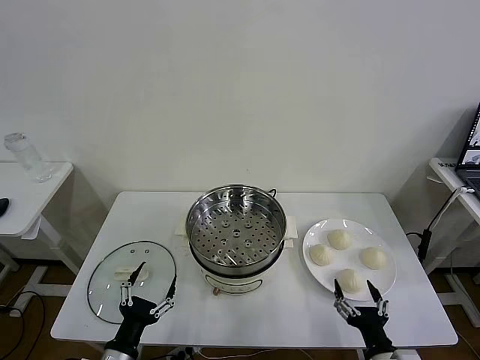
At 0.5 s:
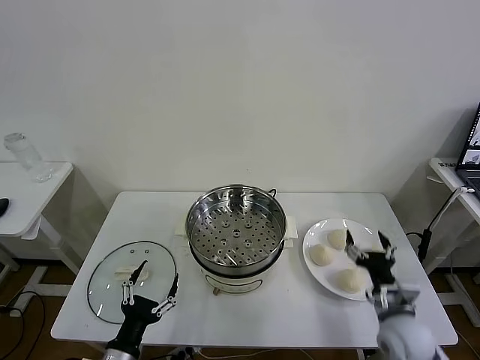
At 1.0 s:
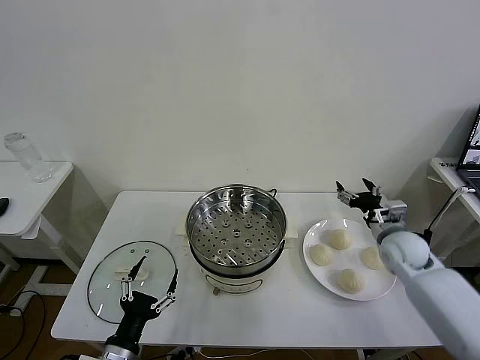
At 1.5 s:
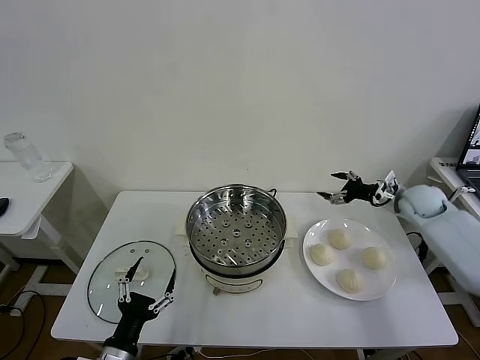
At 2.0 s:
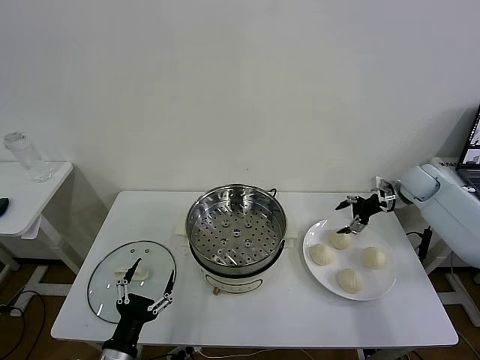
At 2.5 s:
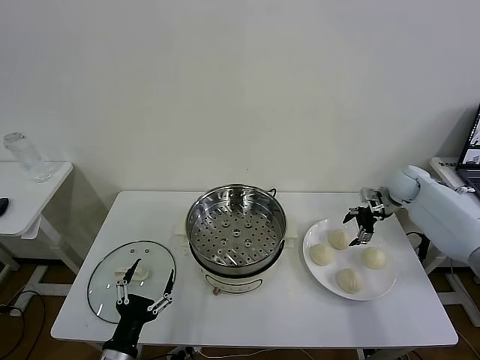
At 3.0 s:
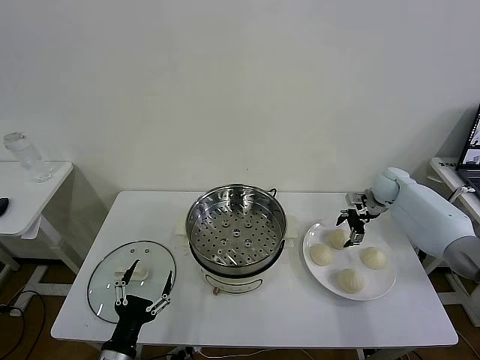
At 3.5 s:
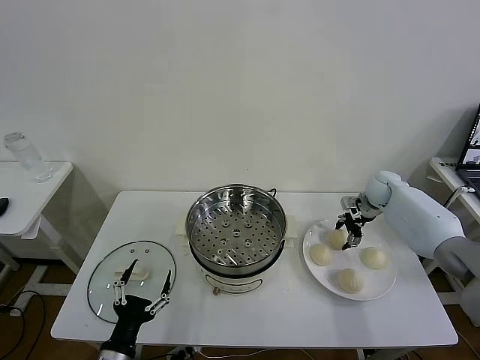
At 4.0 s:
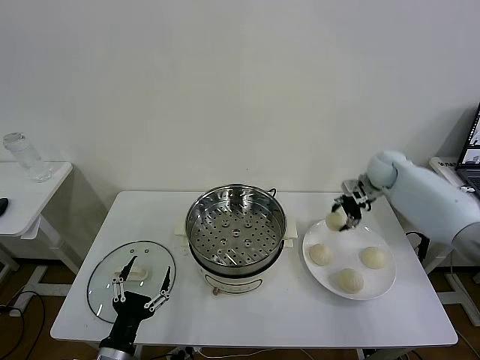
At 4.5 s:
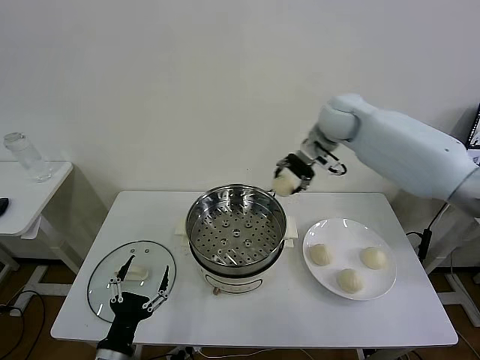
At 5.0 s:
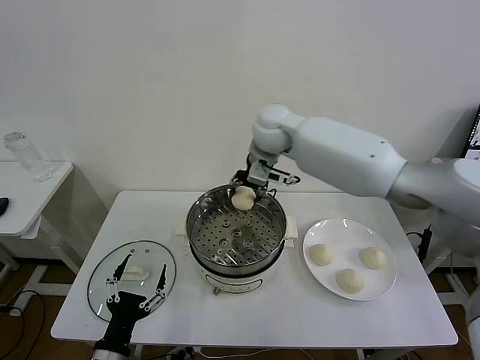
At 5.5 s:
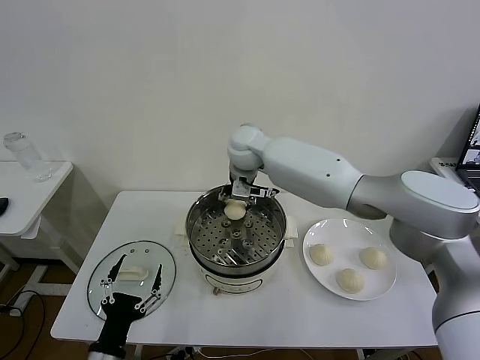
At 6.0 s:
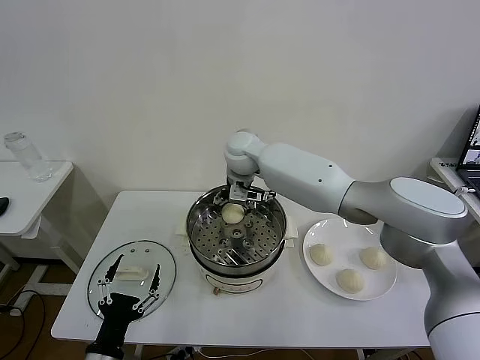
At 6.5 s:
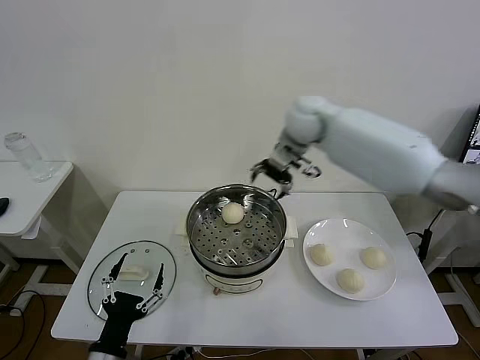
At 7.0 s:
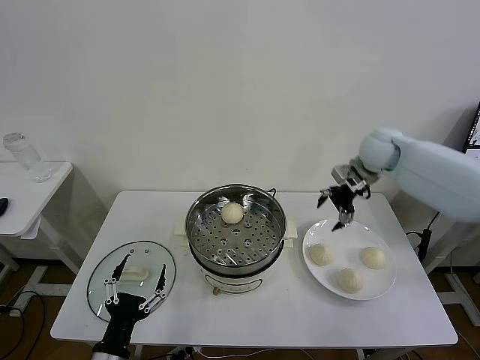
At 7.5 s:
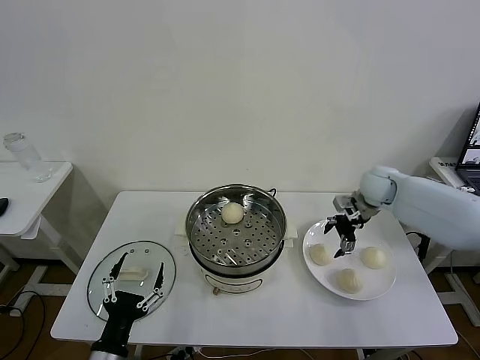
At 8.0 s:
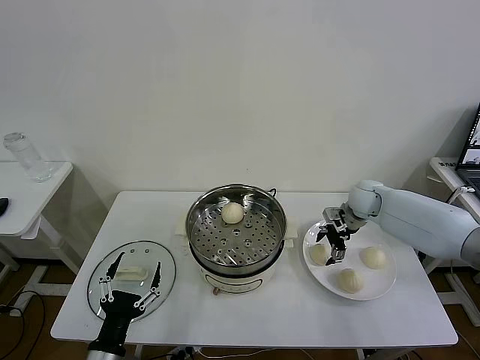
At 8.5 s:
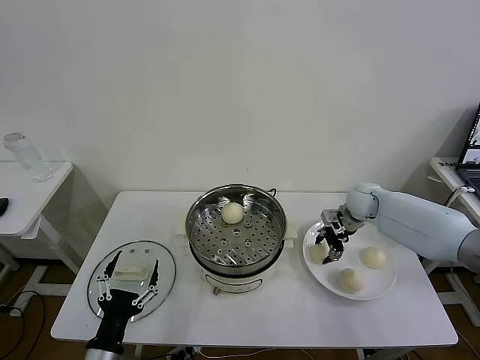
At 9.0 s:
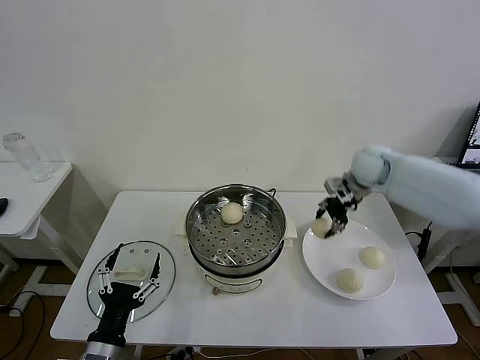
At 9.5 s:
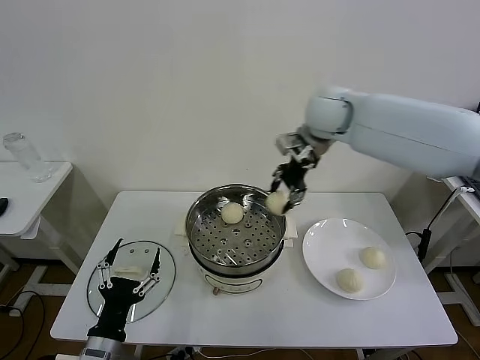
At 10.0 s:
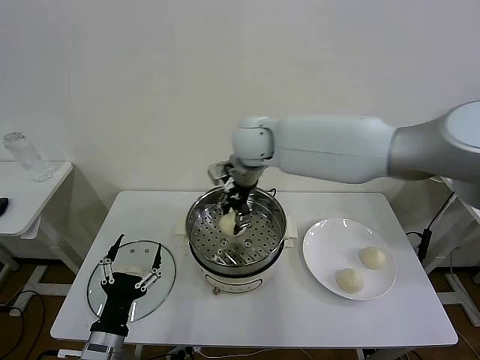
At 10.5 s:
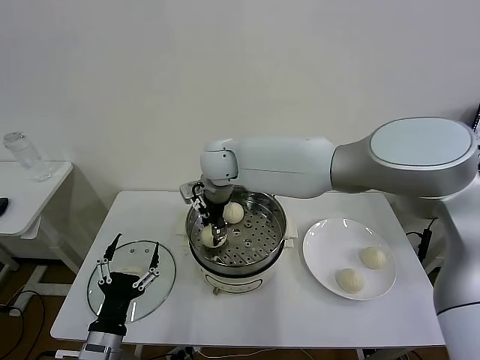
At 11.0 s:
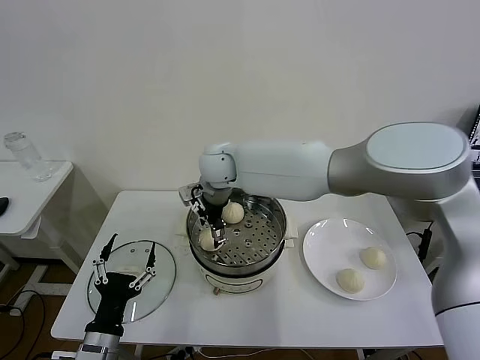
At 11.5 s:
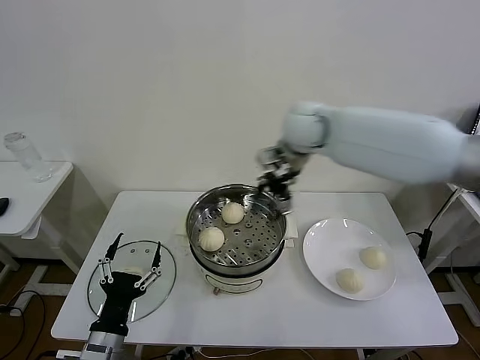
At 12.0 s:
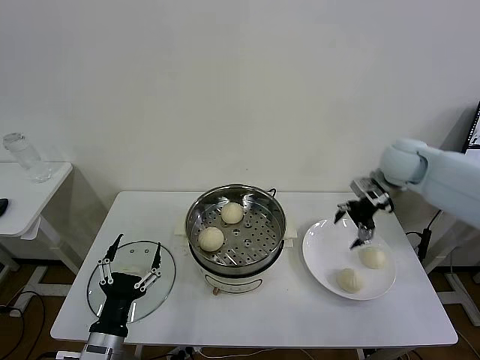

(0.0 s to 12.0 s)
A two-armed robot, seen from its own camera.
Task of the whole recording: take steamed baozi put them in steamer then cover it.
Step, 0.0 s - 3.5 s: Grasp the baozi in the plate with right gripper.
Step, 4.0 s - 6.0 s: Place the baozi on the steamer with right gripper.
Step, 6.5 s - 8.5 s: Grasp the baozi in the plate with right gripper.
Step, 9.0 s - 11.0 s: Place the baozi on the steamer with right gripper.
2.0 s - 4.0 s: The right gripper travels to the left and upward by some 15 cm, and closes its fingers.
4.0 s - 6.0 s: The right gripper moves to the left, about 30 cm, and opens up.
6.0 s - 8.0 s: The right gripper goes approximately 35 cm to the right and downward.
8.0 s - 10.0 s: The right gripper is displaced to the left and upward by roughly 35 cm, and closes up.
10.0 s - 12.0 s: The right gripper heads to the right, covering about 35 cm, and opens.

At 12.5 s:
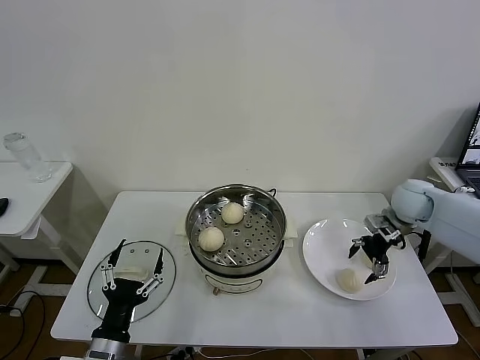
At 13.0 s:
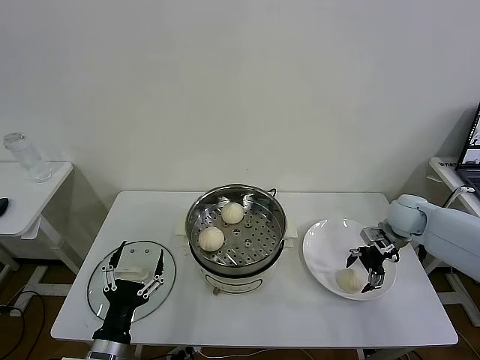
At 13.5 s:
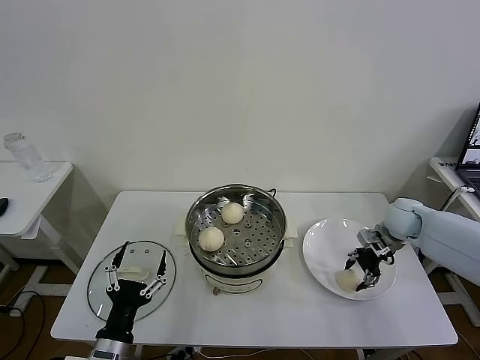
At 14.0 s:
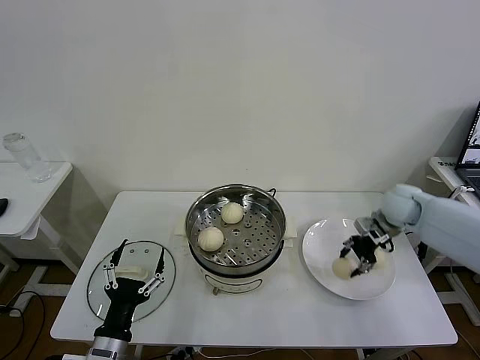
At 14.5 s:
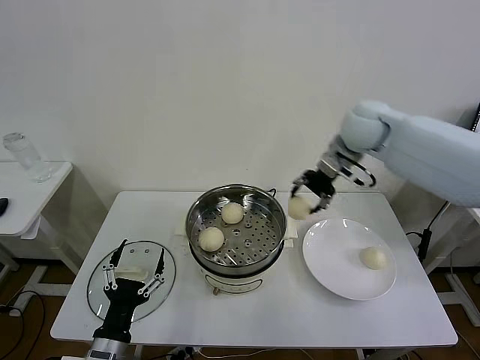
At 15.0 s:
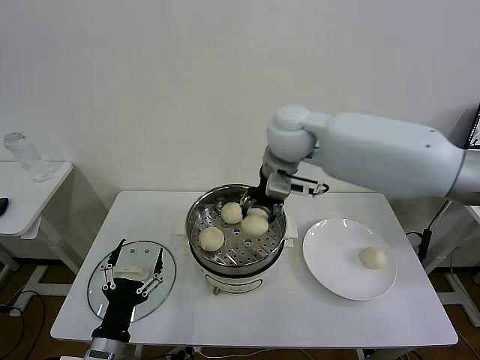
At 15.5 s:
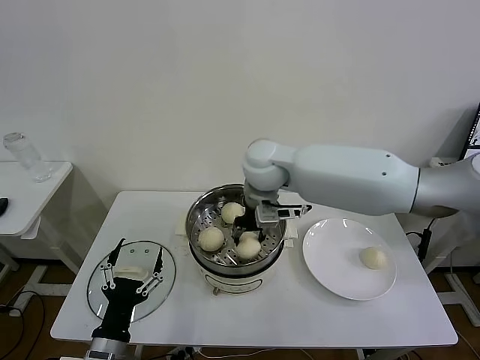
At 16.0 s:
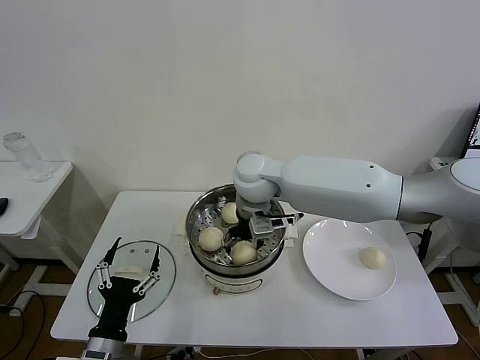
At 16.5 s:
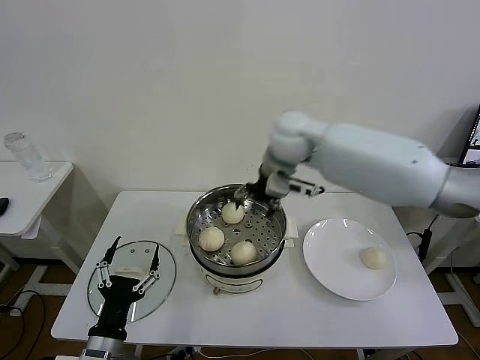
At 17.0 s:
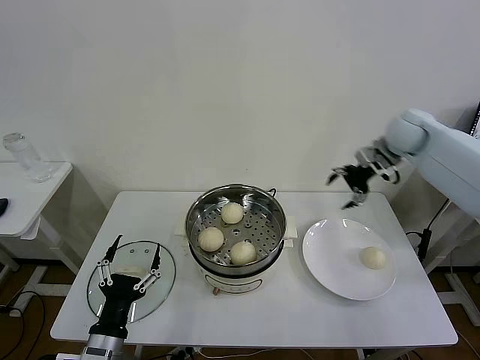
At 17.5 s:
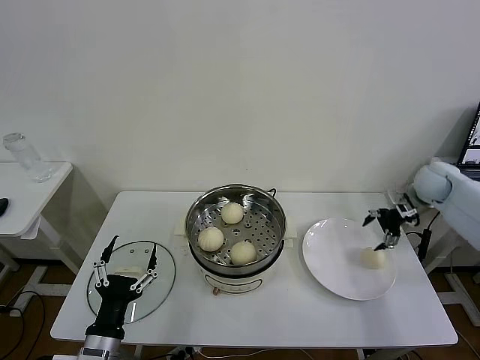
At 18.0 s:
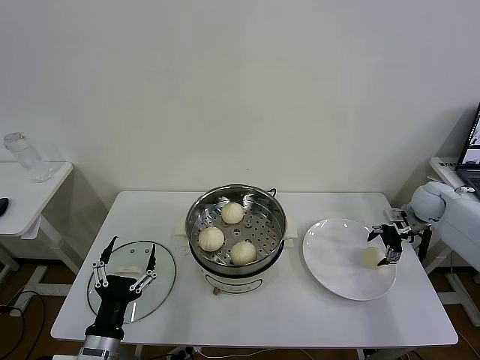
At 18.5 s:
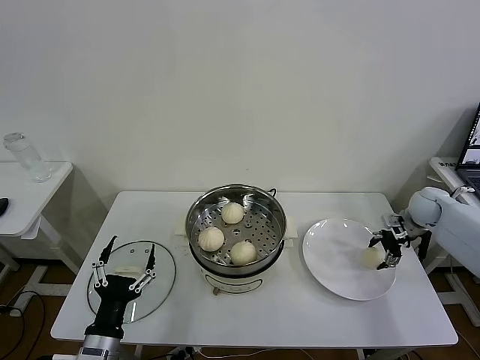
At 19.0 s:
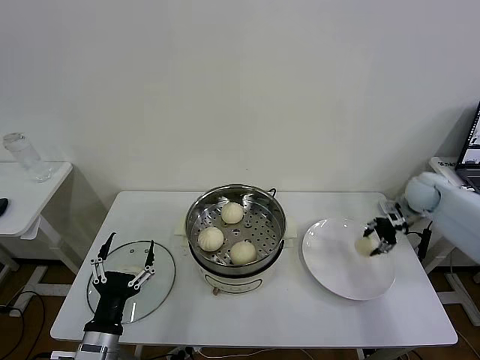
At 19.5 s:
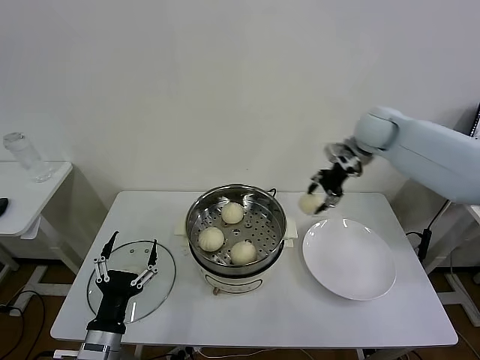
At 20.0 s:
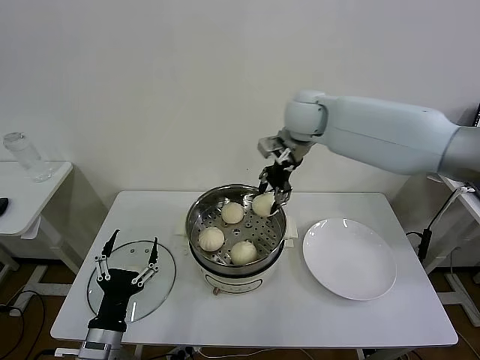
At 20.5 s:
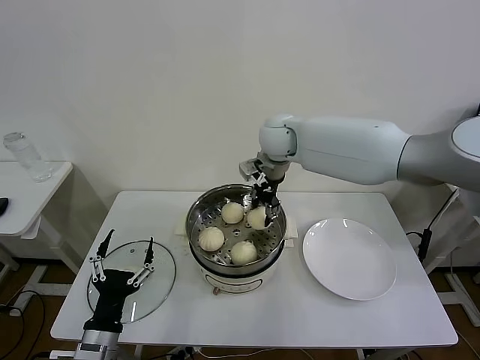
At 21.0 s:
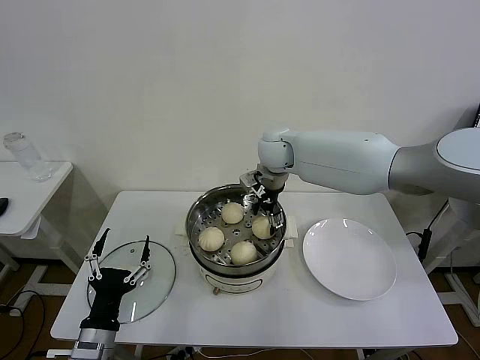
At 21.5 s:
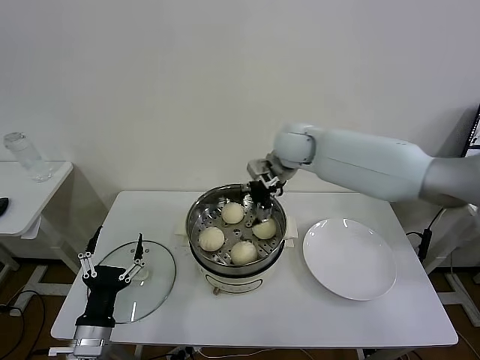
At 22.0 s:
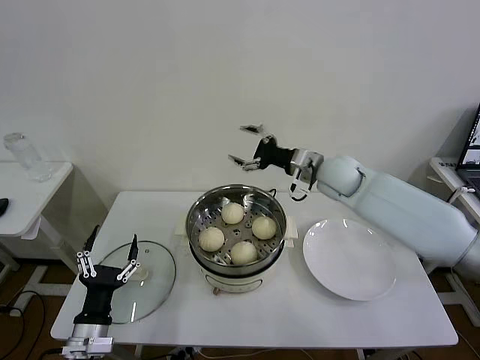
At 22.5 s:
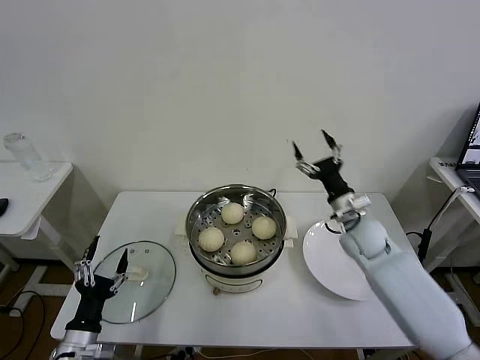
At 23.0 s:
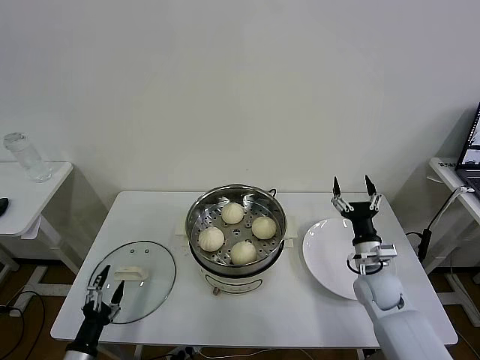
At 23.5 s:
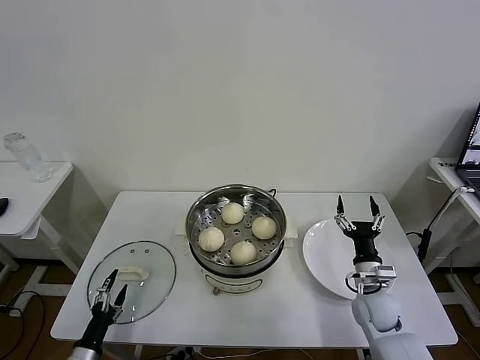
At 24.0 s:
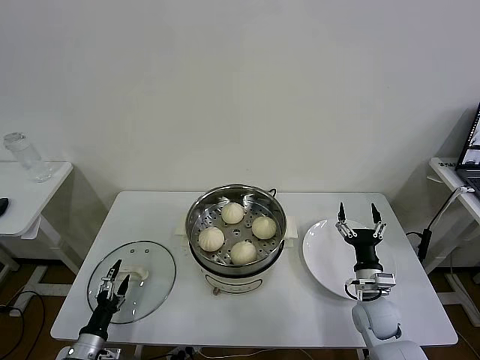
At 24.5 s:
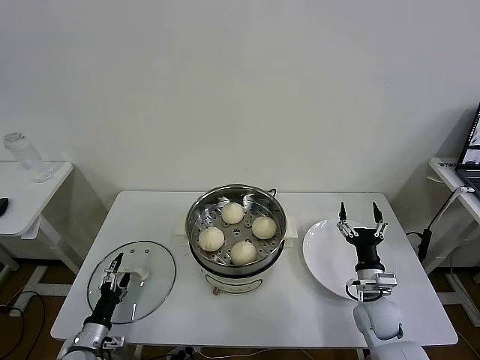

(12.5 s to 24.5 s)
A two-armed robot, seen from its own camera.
Task of the whole recording: take steamed baozi put them in steamer then cover it.
Step, 14.0 s - 16.0 s: Place the baozi on the steamer with right gripper.
Step, 16.5 s - 18.5 s: Grasp the baozi in the plate with right gripper.
Step, 19.0 s - 21.0 s: Place the baozi on the steamer with right gripper.
12.5 s - 14.5 s: The right gripper moves upward and to the left, about 30 cm, and closes.
14.5 s - 16.5 s: The right gripper travels to the left by roughly 10 cm, and opens up.
16.5 s - 18.5 s: The right gripper moves to the right and downward, roughly 40 cm, and closes up.
18.5 s - 20.5 s: The right gripper shifts approximately 40 cm to the left and upward, and closes its fingers.
20.5 s - 22.5 s: The right gripper heads to the right, downward and backward, covering some 30 cm, and opens. Meanwhile the left gripper goes roughly 5 cm to the left.
22.5 s - 24.5 s: The left gripper moves downward and to the left, approximately 10 cm; the right gripper travels backward and downward by some 20 cm.

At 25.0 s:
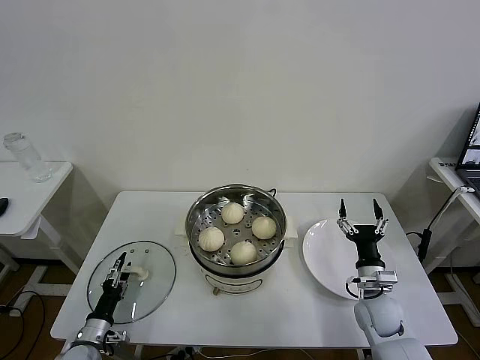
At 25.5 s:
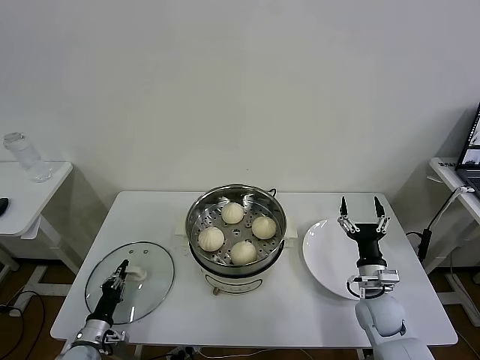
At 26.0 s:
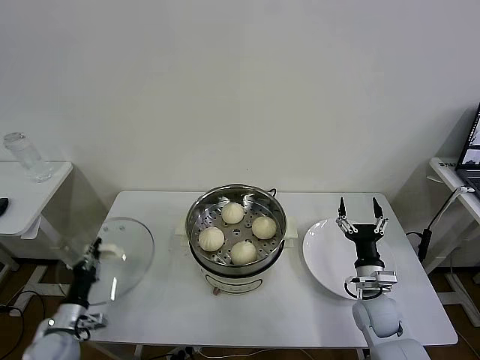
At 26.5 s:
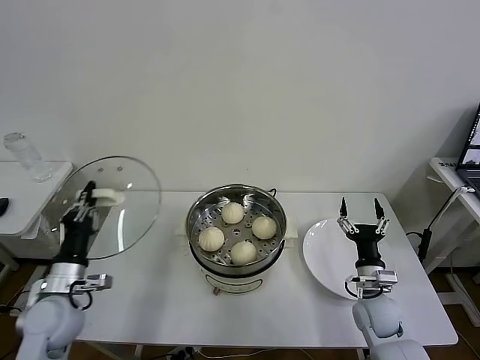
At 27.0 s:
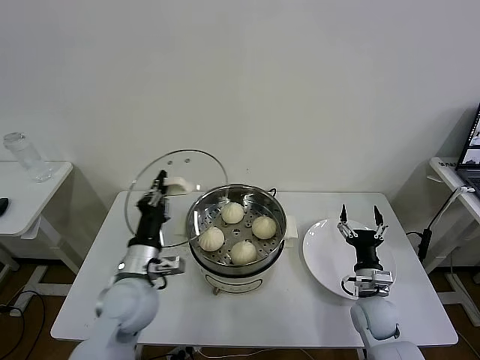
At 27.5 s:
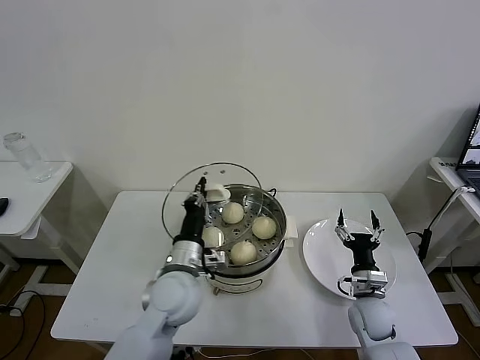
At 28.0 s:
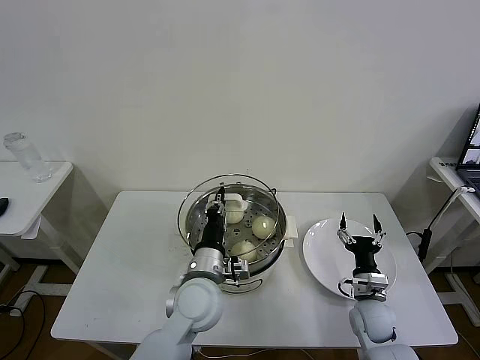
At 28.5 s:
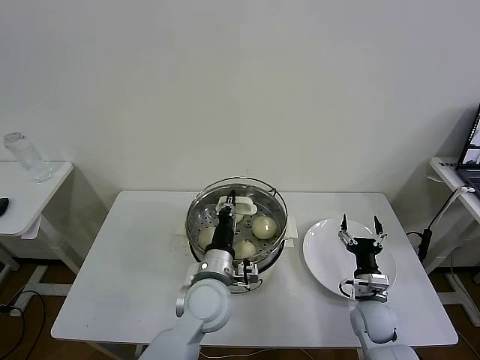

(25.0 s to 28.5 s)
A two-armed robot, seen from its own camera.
Task of the whole recording: take steamed baozi put them in steamer then cover it.
25.0 s - 27.0 s: The left gripper moves upward and to the right, roughly 30 cm, and closes up.
27.0 s - 28.5 s: The left gripper heads to the right, covering about 15 cm.
